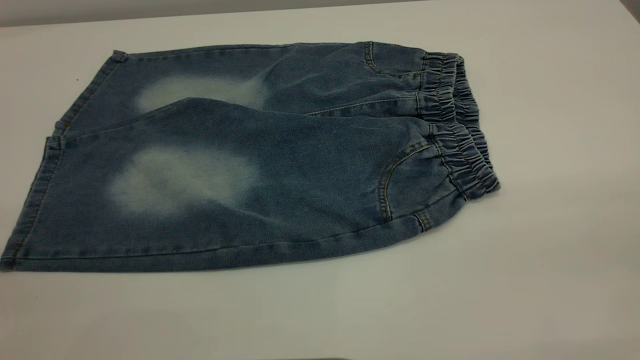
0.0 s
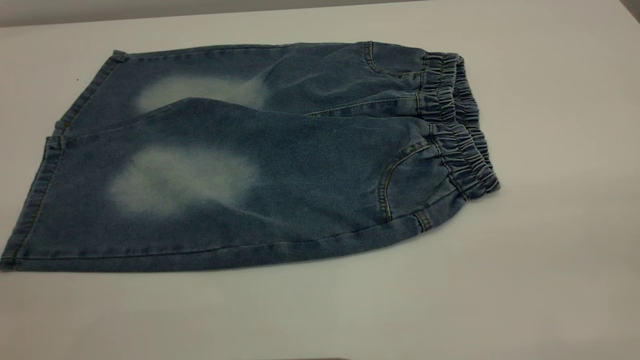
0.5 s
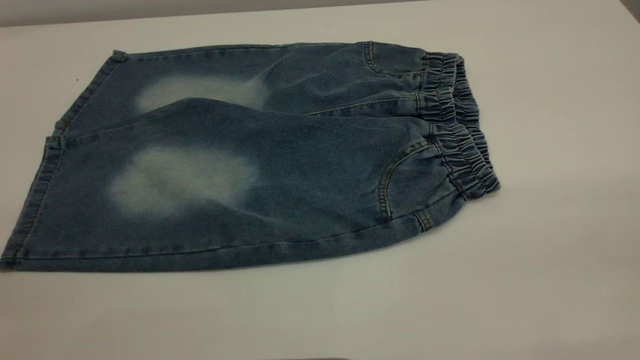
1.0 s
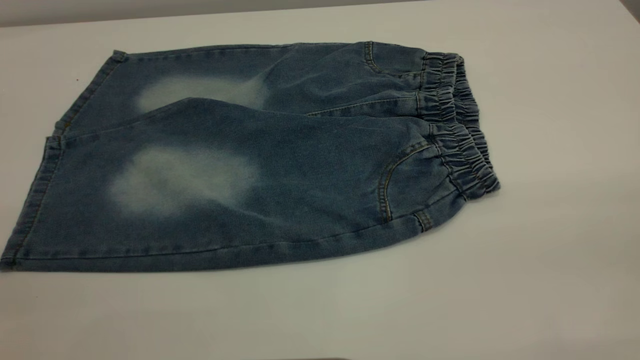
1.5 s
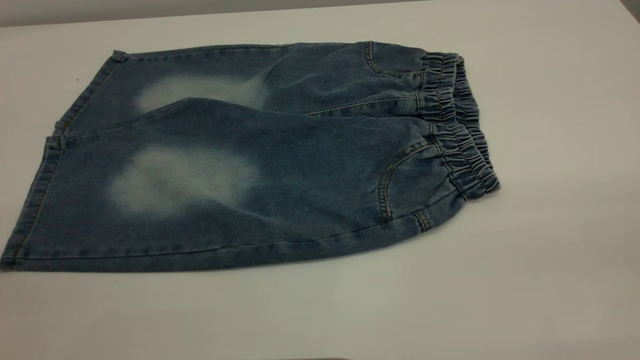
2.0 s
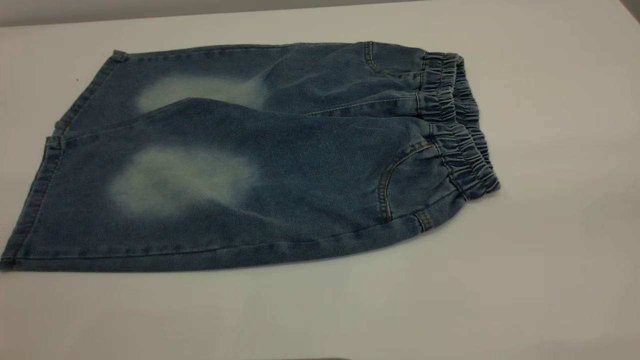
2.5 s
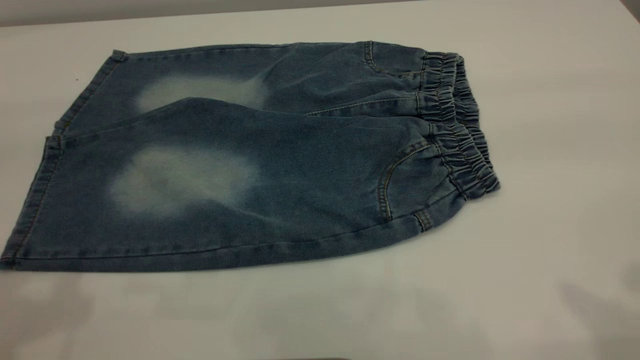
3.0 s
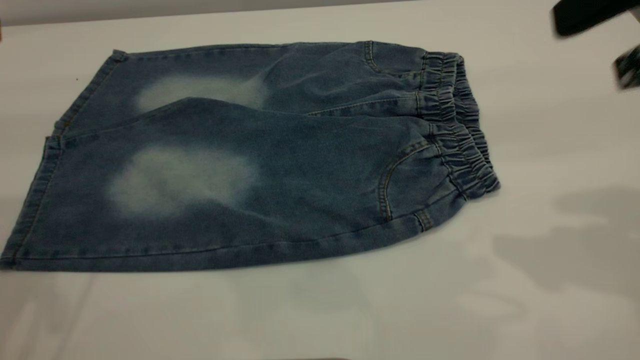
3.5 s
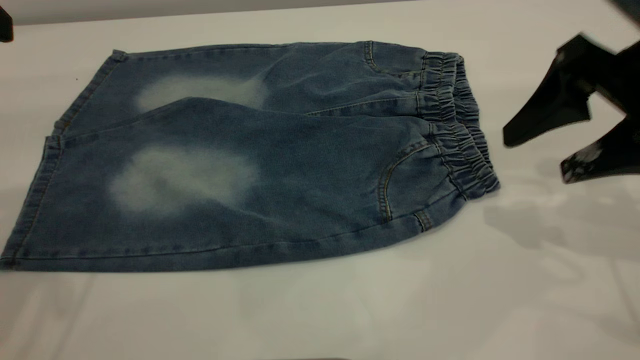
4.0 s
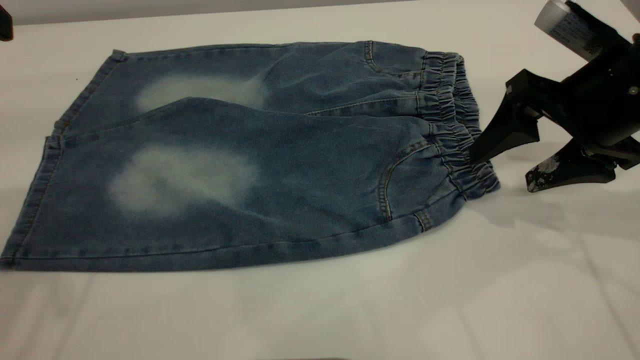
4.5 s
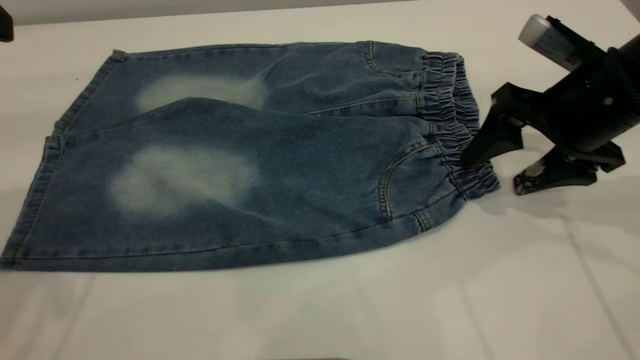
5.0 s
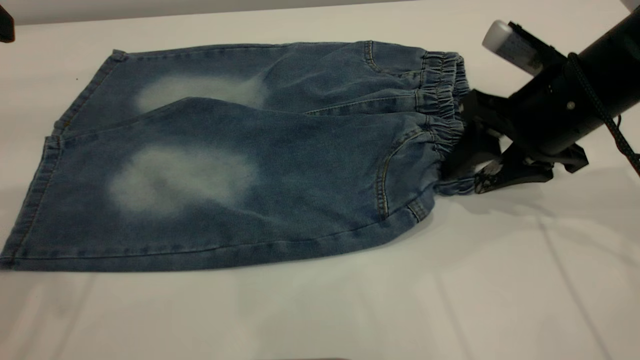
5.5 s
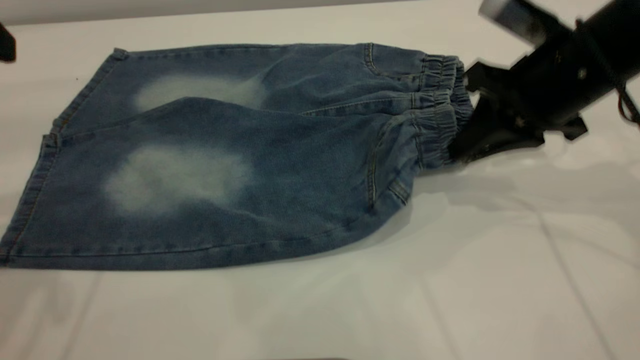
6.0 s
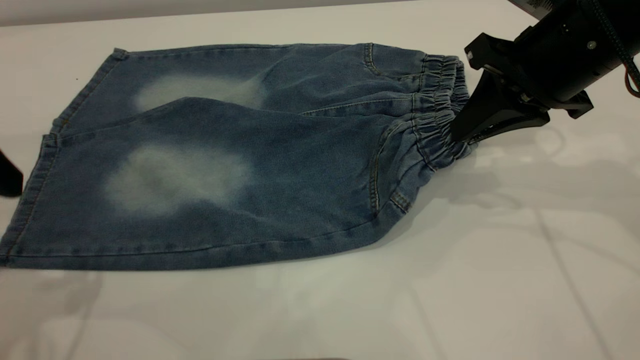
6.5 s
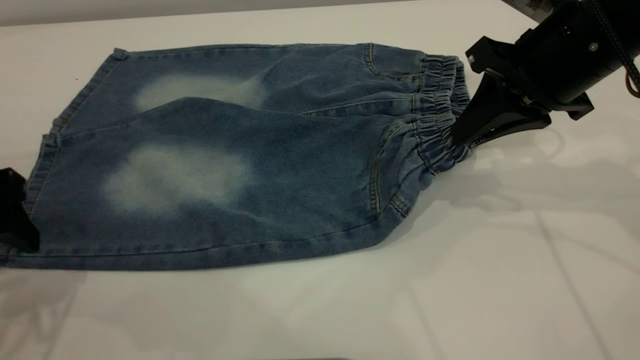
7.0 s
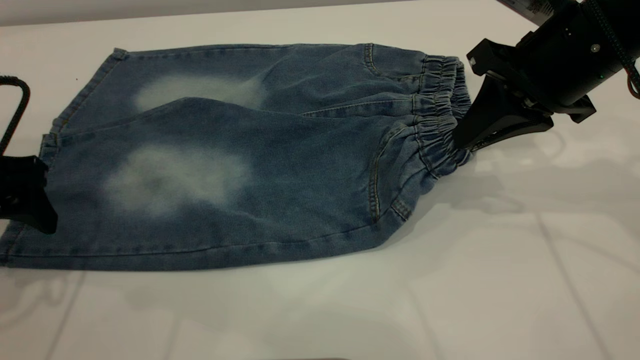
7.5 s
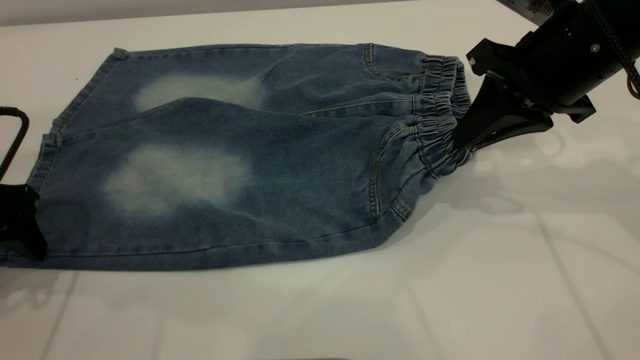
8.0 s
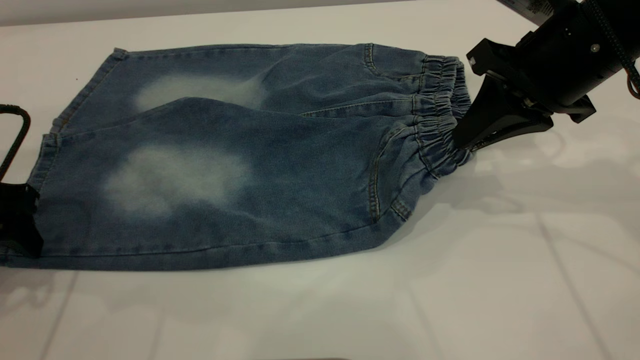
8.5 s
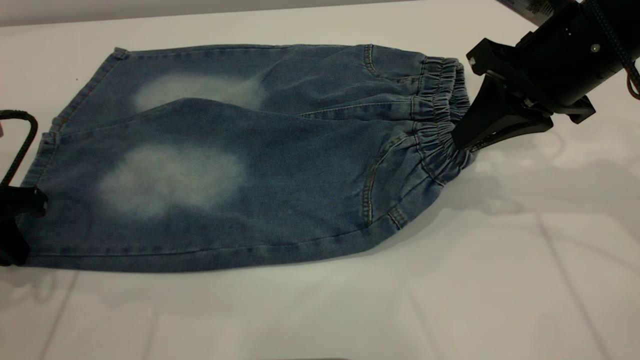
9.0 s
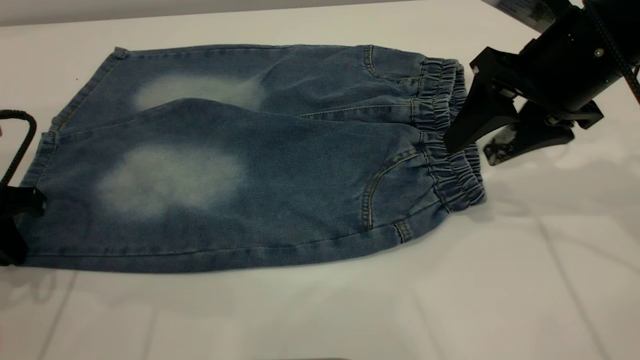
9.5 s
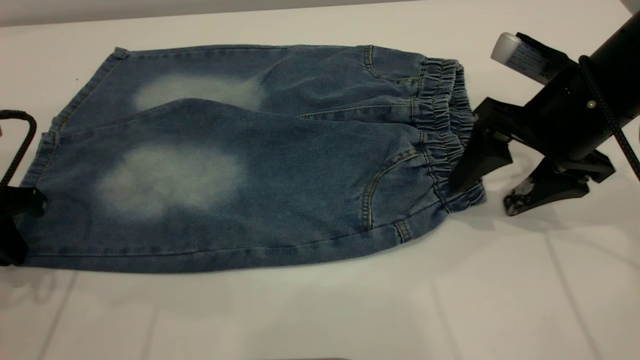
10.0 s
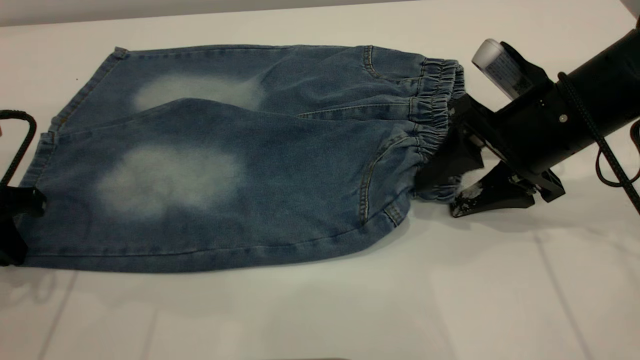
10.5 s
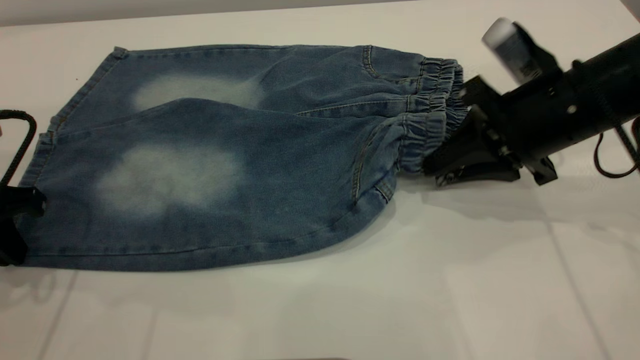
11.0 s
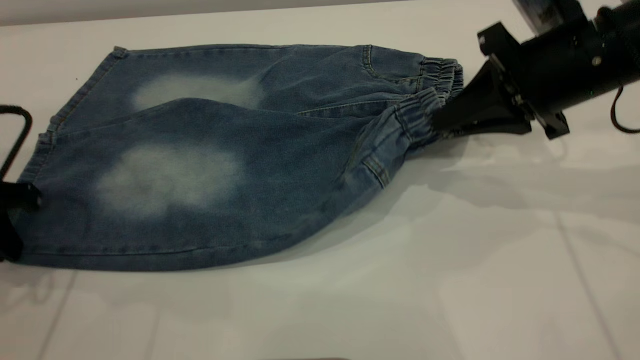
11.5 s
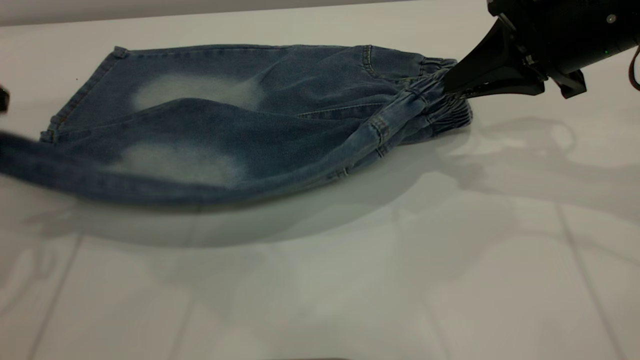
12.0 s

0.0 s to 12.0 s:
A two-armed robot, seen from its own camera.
0.0 to 2.0 s: The two grippers keep their place.
2.0 to 4.0 s: The right gripper shifts some 30 cm forward and downward.
4.0 to 6.0 s: The right gripper moves forward, some 5 cm, and closes up.
6.0 to 8.0 s: The left gripper is displaced downward by roughly 15 cm.
8.0 to 10.0 s: The right gripper moves roughly 5 cm, and opens. Meanwhile the left gripper closes.
10.0 to 12.0 s: Both grippers travel together upward, about 5 cm. The right gripper closes.

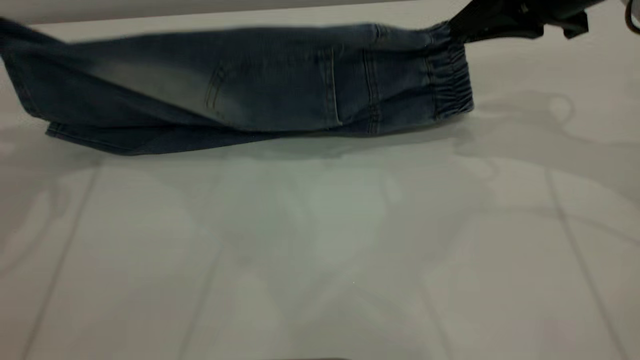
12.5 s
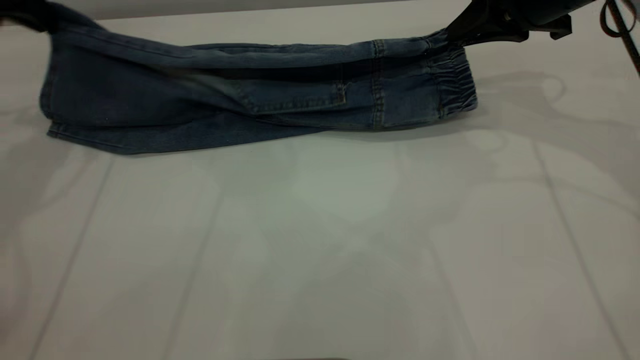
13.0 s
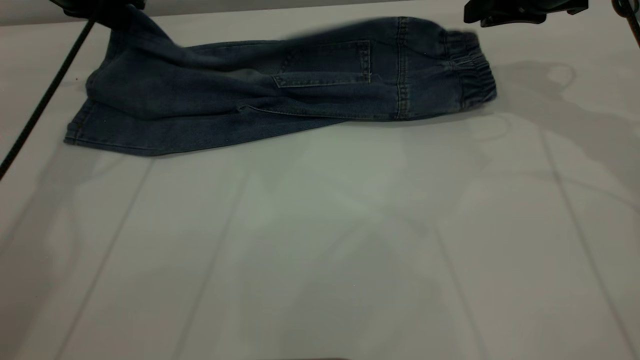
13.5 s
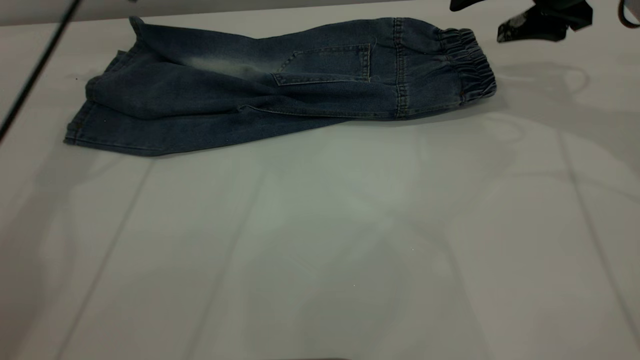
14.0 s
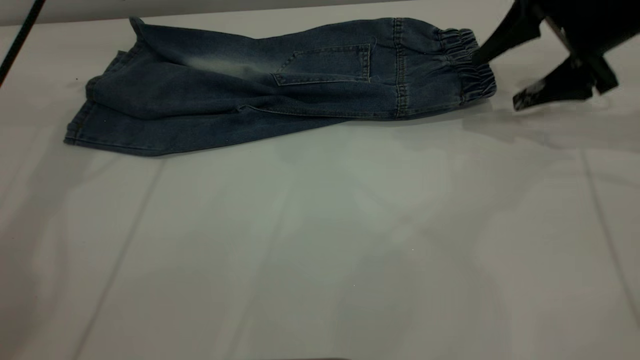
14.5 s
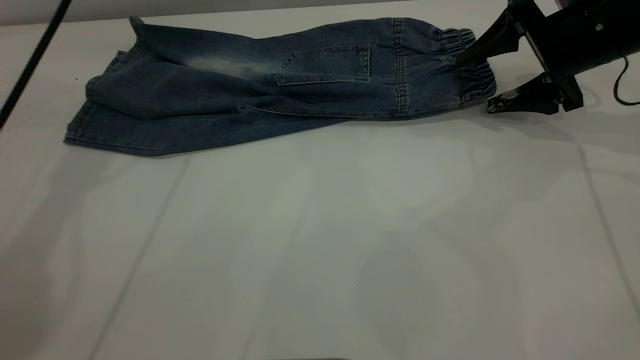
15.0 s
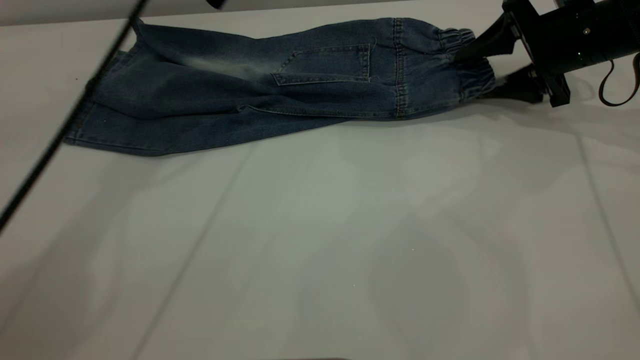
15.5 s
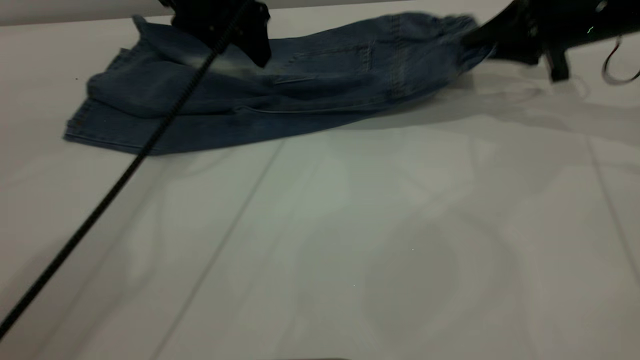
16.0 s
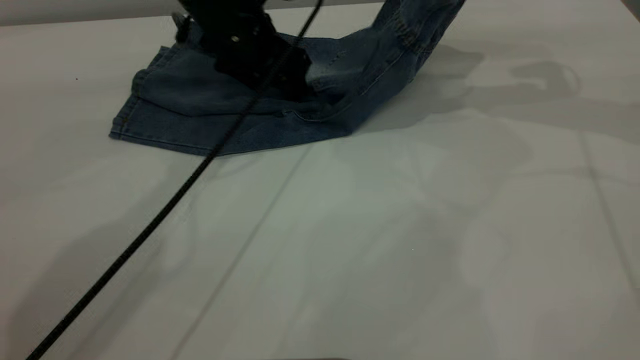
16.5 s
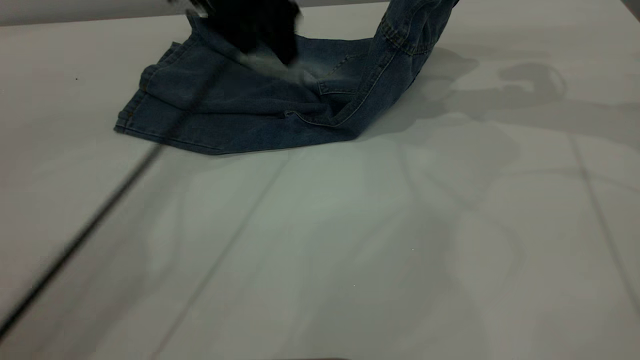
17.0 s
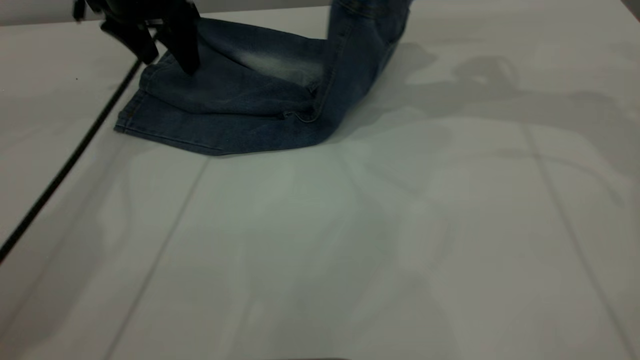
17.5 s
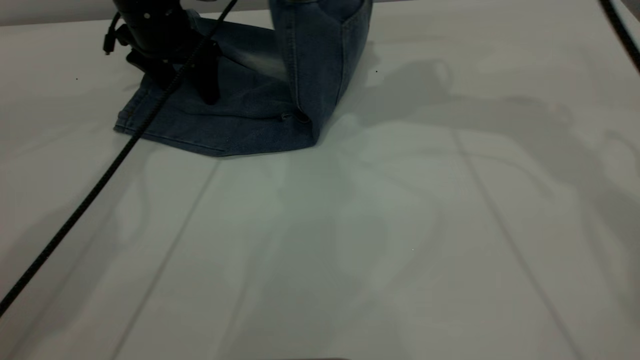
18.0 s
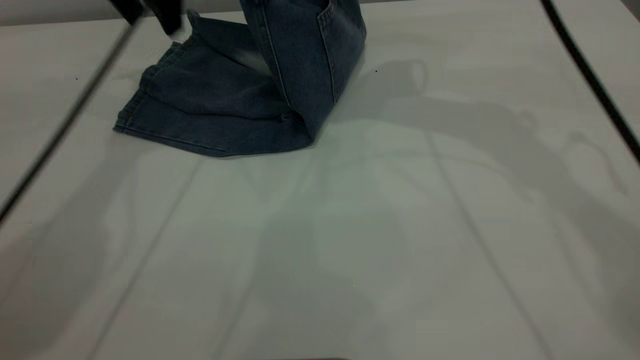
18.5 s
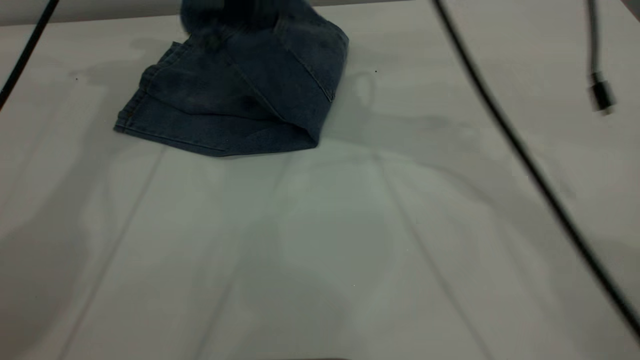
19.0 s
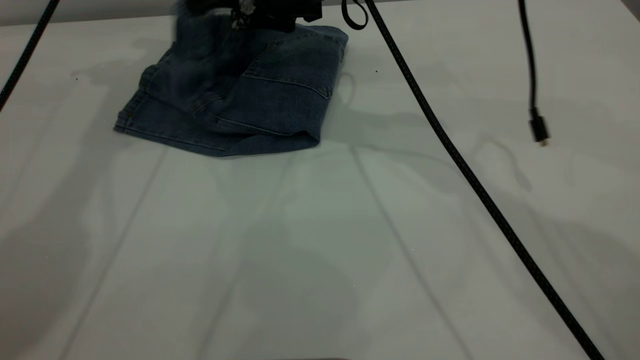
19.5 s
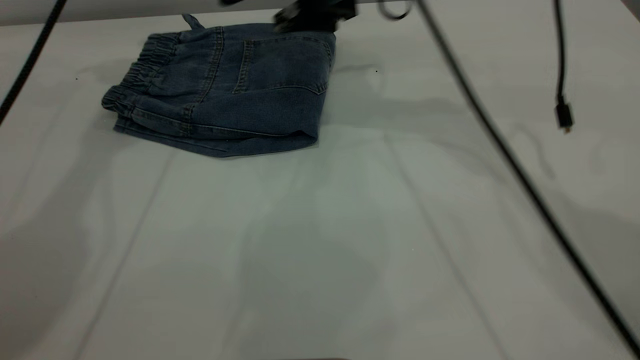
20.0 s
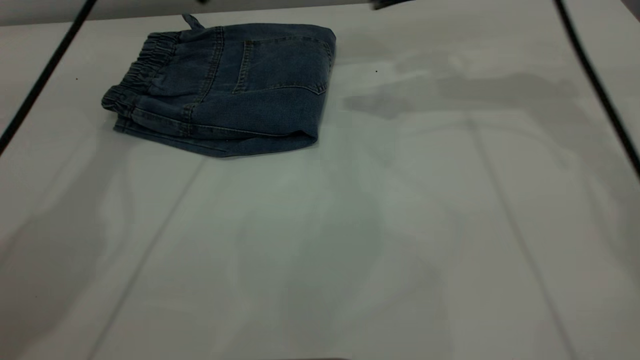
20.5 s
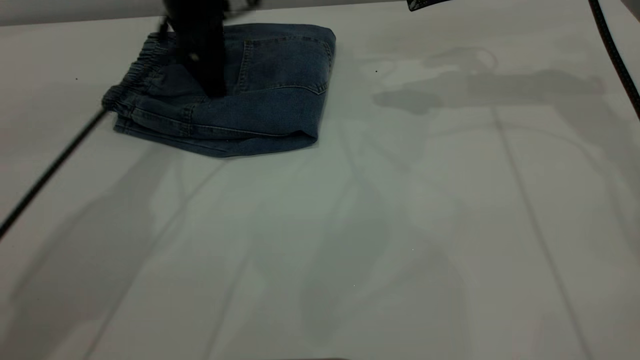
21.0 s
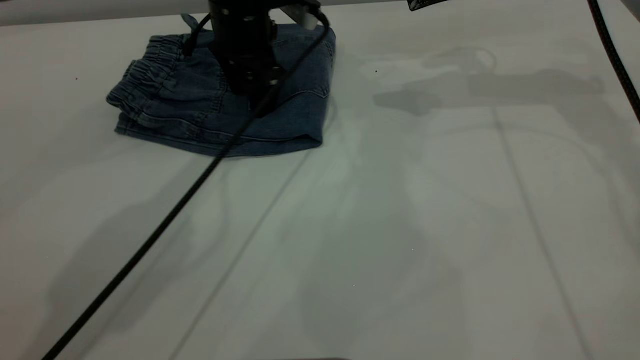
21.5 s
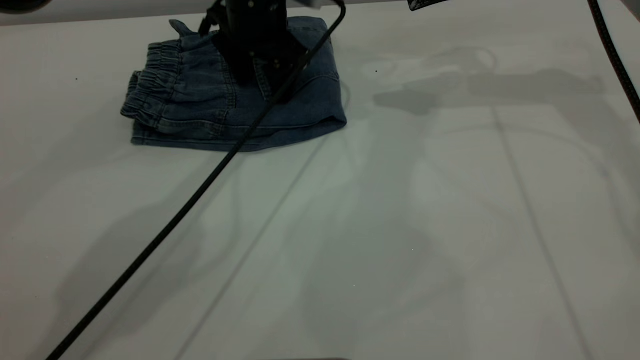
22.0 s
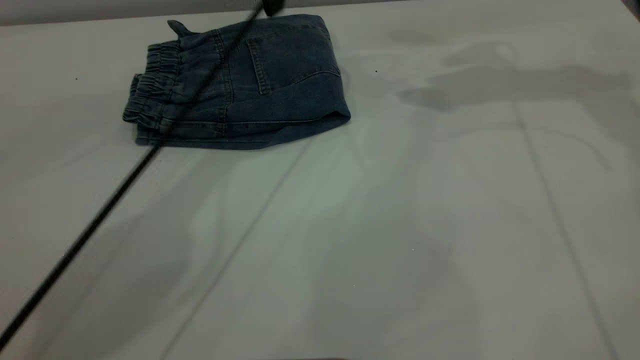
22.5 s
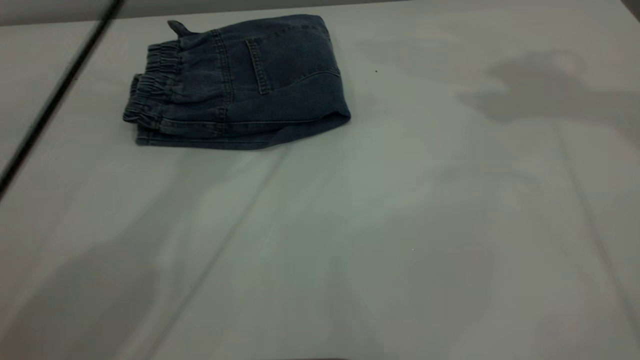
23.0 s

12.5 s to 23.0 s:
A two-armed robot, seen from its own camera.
Step, 14.5 to 20.0 s: Fold your pants from right to left.
12.5 to 14.5 s: The left gripper travels forward and to the right by roughly 15 cm, and opens its fingers. Meanwhile the right gripper shifts about 5 cm downward, and opens its fingers.
14.5 to 16.5 s: The right gripper moves upward, roughly 5 cm, and closes up; the left gripper goes some 20 cm to the right and downward.
16.5 to 19.0 s: The right gripper is displaced to the left by some 25 cm, while the left gripper moves up and down over some 15 cm, changing direction 2 times.
19.0 to 21.0 s: The left gripper is displaced downward and to the right by some 20 cm; the right gripper goes some 15 cm to the right, and opens.
21.0 to 23.0 s: The grippers both shift upward by about 25 cm.
